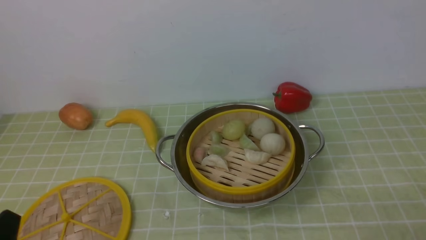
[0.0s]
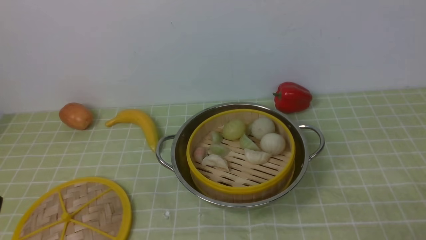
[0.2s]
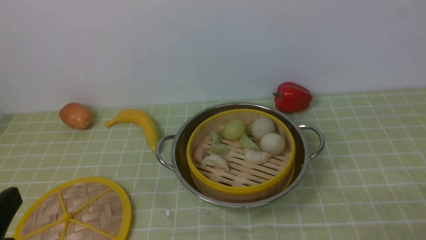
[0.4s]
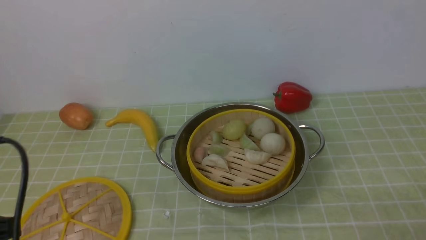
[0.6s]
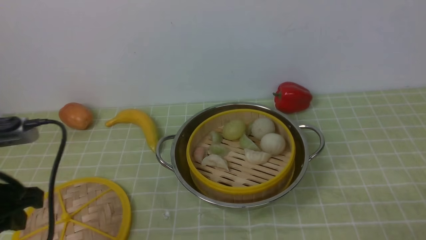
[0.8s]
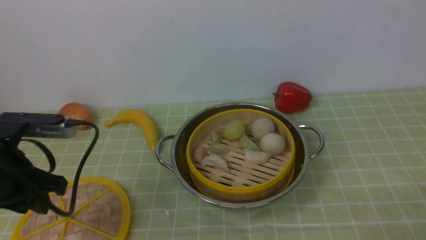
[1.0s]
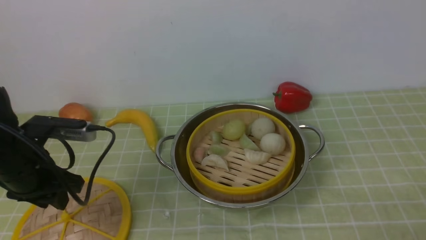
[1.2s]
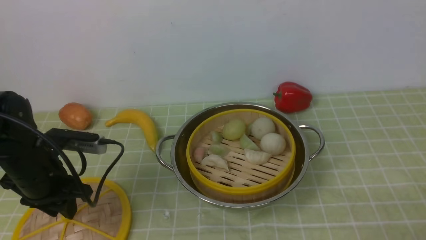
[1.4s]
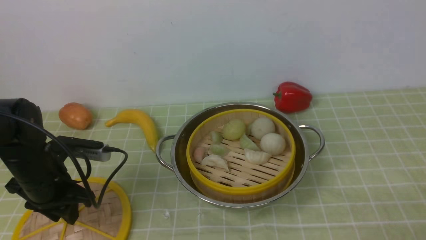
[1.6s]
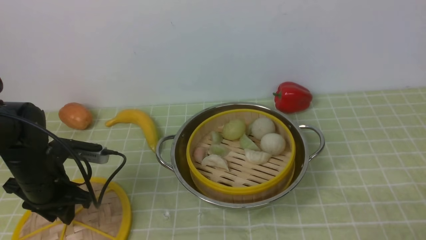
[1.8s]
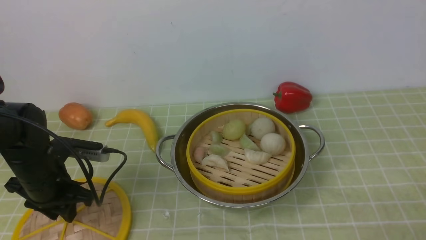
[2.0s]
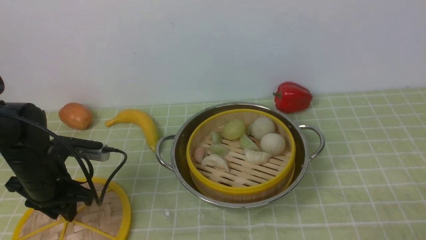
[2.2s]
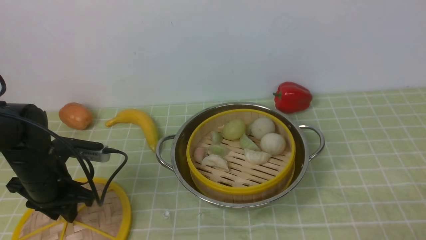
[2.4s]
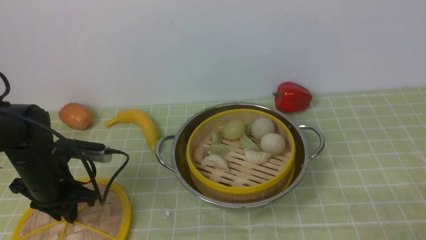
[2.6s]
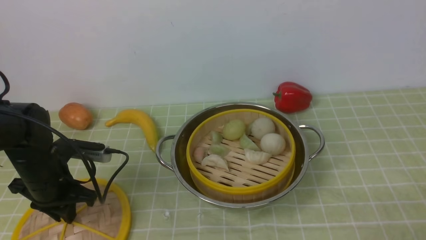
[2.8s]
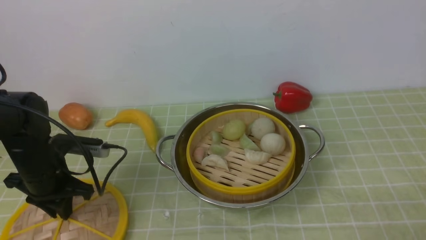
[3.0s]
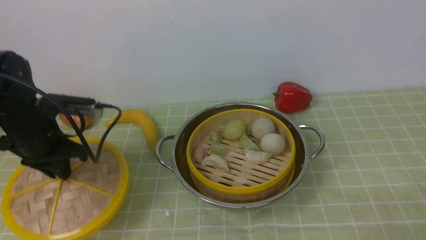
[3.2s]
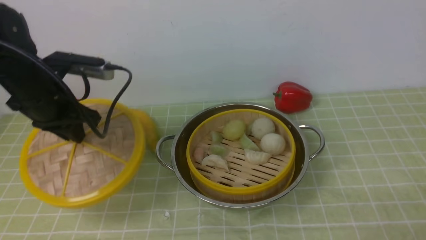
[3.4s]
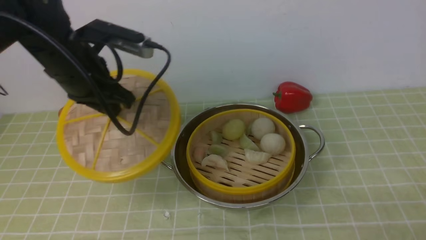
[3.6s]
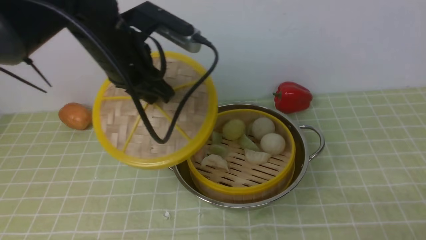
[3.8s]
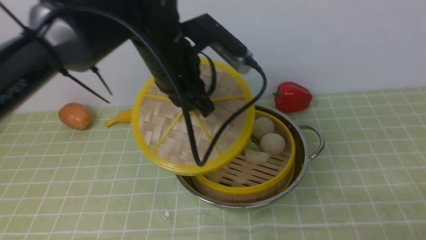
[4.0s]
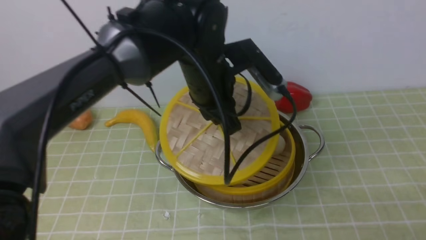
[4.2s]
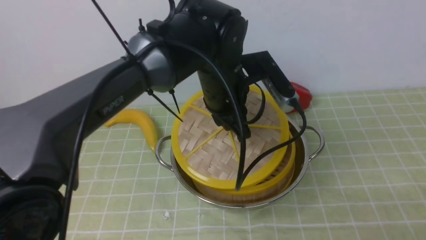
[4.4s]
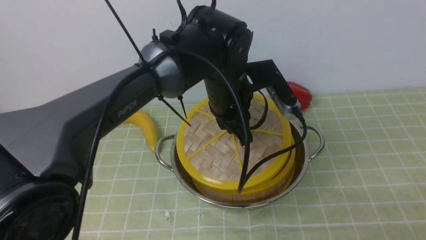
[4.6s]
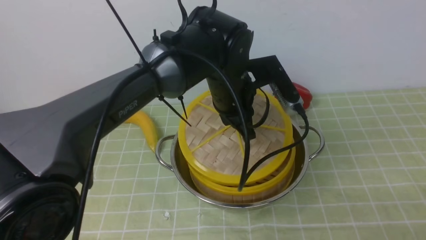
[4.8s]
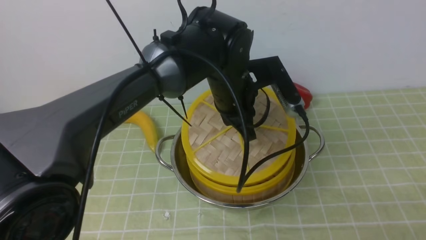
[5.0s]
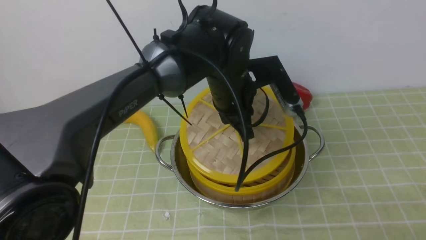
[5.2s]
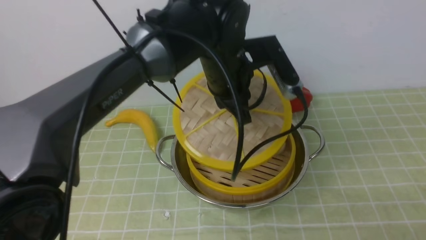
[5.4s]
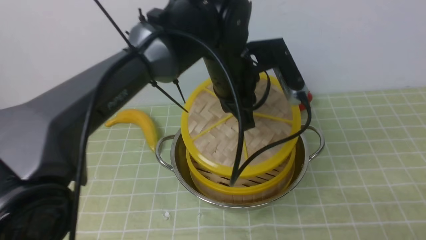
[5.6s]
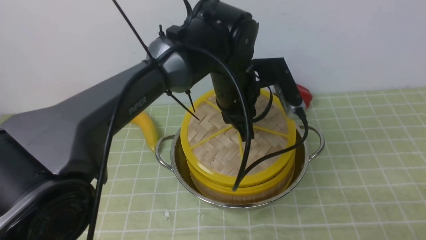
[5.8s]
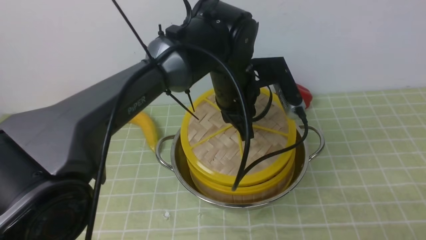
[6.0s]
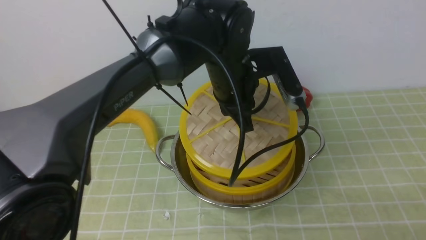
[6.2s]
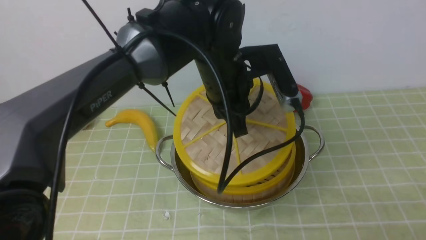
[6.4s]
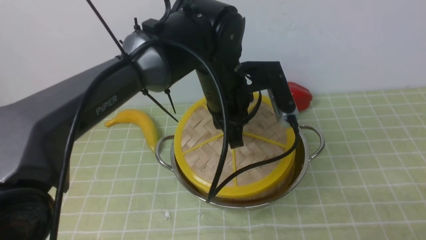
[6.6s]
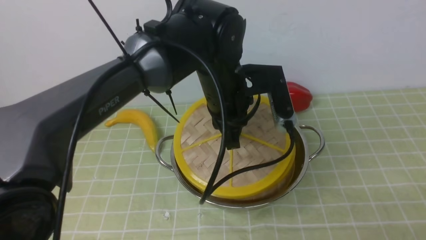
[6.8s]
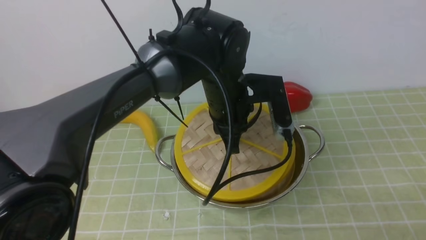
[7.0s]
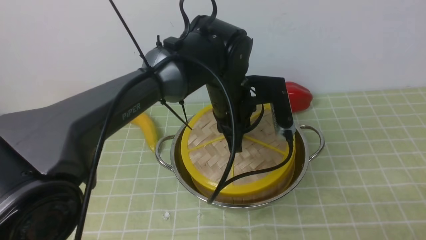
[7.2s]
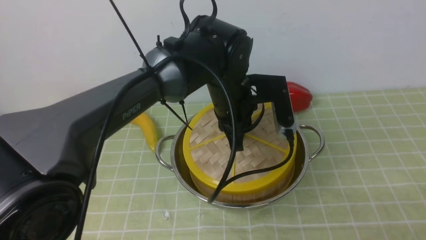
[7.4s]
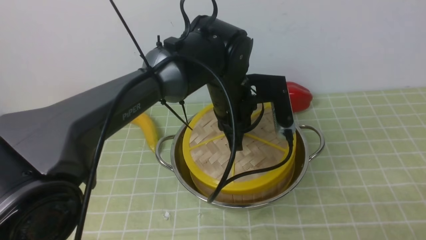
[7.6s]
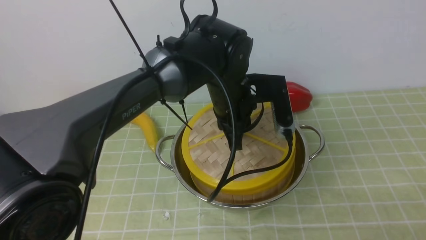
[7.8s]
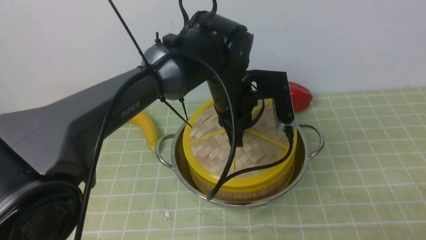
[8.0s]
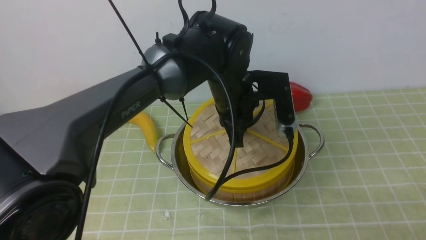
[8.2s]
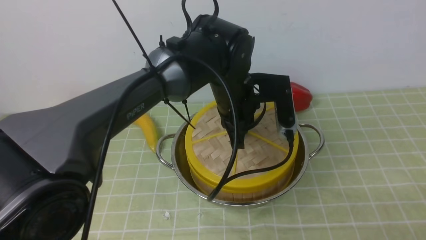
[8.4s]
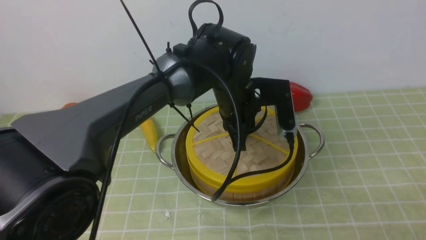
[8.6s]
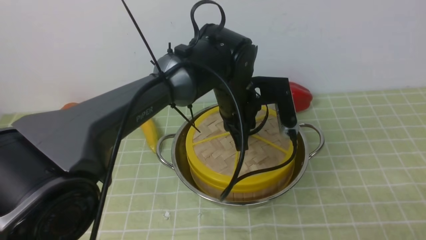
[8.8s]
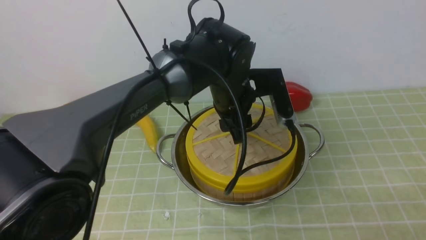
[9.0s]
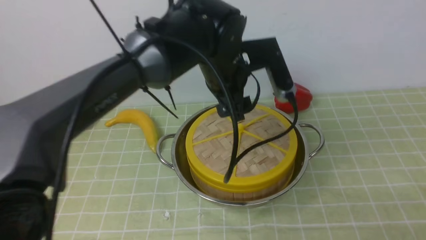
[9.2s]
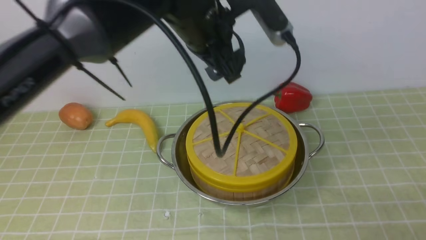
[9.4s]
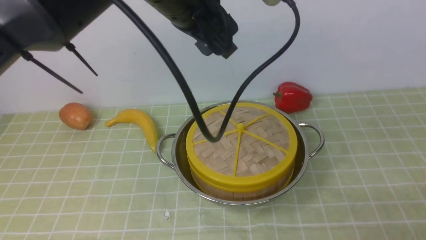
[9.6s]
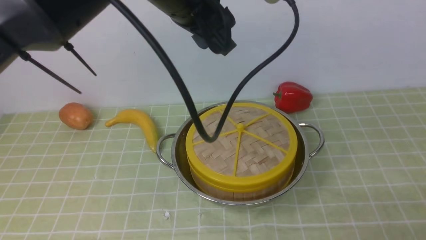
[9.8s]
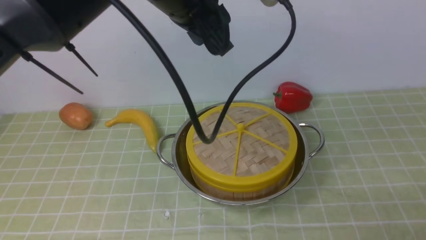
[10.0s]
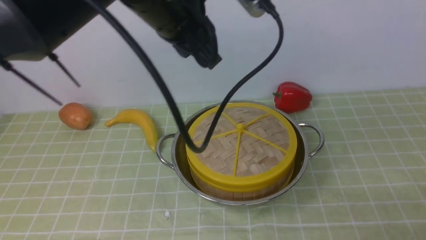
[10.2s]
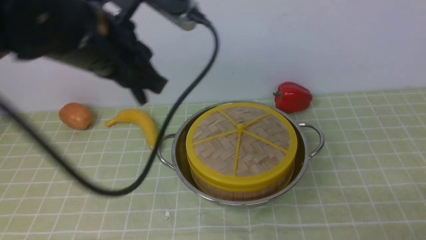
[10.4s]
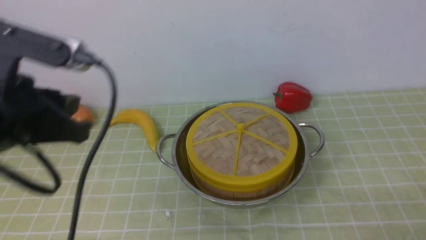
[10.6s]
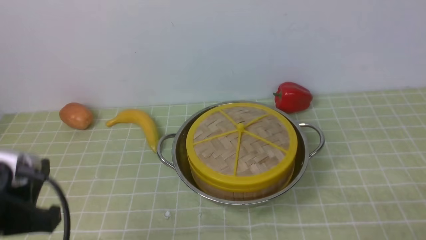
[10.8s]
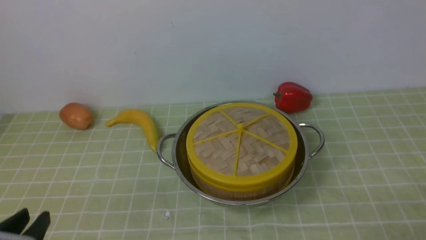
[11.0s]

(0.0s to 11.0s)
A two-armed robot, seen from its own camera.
Task of the whole recording: place the steamer in the pot on the green tablecloth, and put the lid on the steamer.
Step, 0.0s - 3.4s: use the left arm to lift the lid of the steamer.
Step, 3.6s - 9.6s: use the left arm to place the steamer lid on the steamer.
0.0s - 1.6s: The left gripper is displaced forward by roughly 25 cm.
1.6s - 3.2s: The left gripper shifts roughly 5 cm upward.
3.2s - 4.8s: The left gripper goes roughly 30 cm to the right.
4.8s - 6.2s: The grippers move only a little.
7.8s - 9.4s: The left gripper moves upward, approximately 10 cm, and opens up.
9.4s - 11.0s: The left gripper travels backward, to the left and downward by some 40 cm, and closes its fingers.

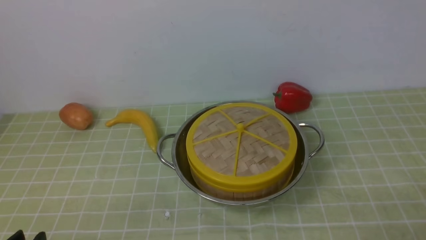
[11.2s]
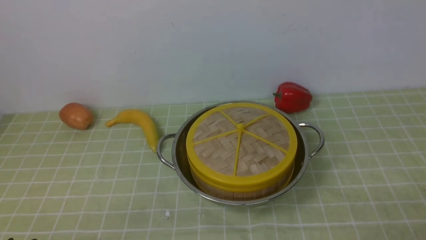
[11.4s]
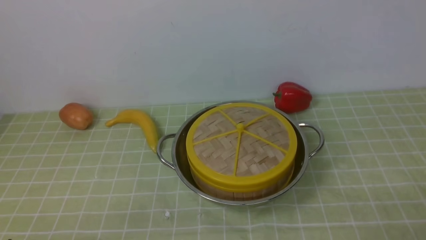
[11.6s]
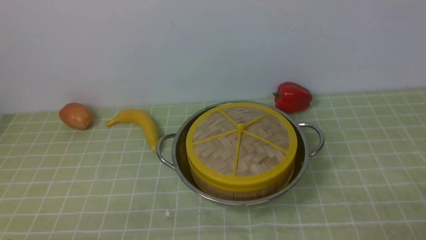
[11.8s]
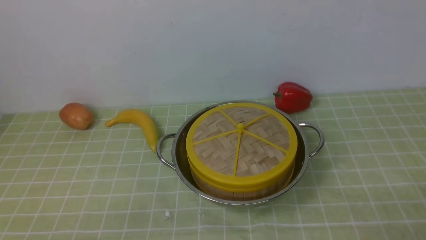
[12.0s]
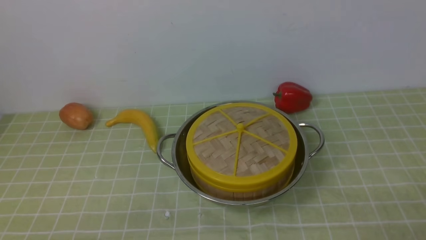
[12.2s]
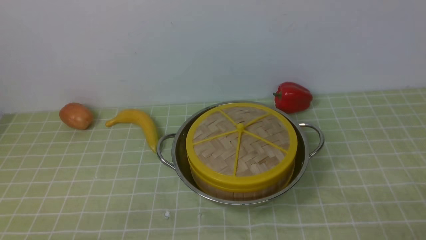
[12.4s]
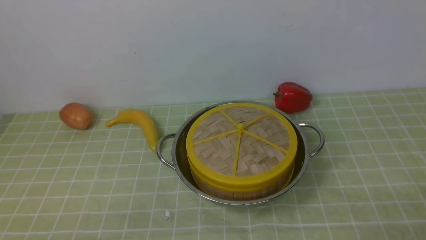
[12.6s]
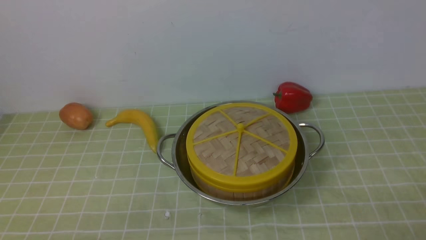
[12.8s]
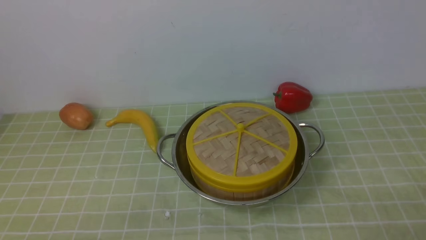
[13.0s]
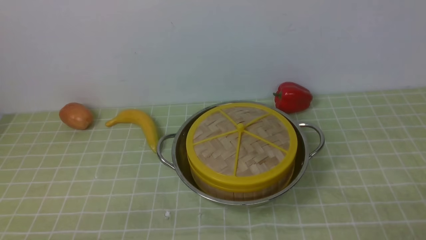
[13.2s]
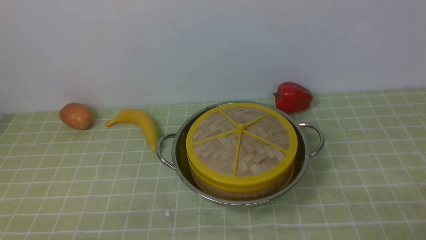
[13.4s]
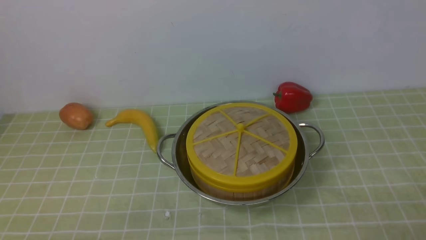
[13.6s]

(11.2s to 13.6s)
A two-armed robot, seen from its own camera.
Task of the whole recording: place the steamer in the pot on the green tablecloth, and put the lid on the steamer.
12.4s - 13.6s: Neither gripper changes place.
